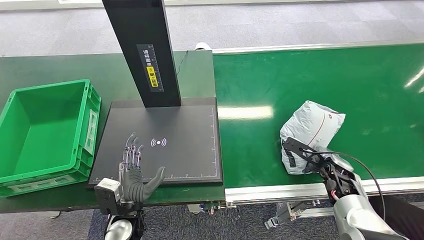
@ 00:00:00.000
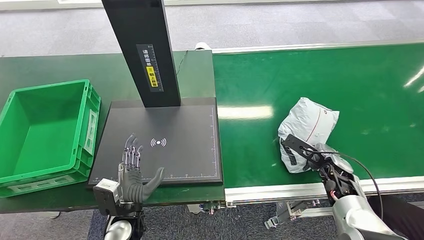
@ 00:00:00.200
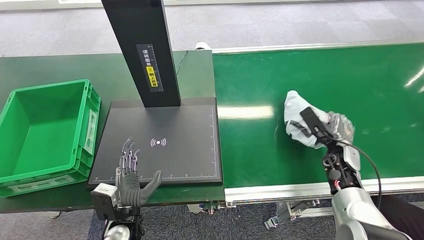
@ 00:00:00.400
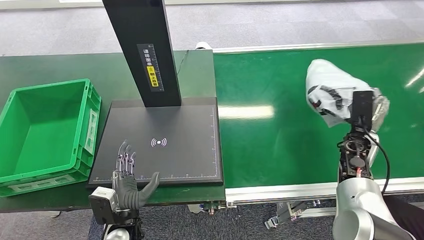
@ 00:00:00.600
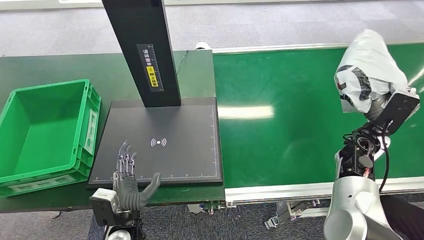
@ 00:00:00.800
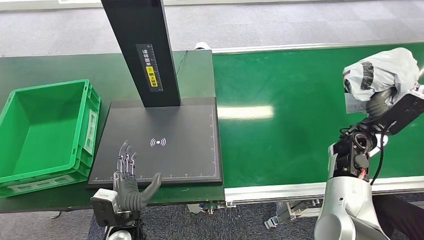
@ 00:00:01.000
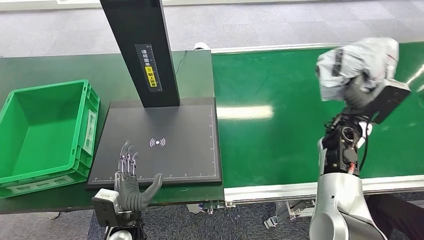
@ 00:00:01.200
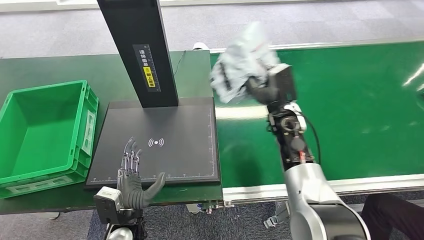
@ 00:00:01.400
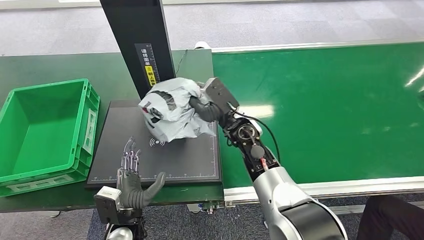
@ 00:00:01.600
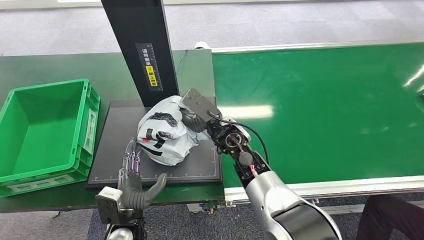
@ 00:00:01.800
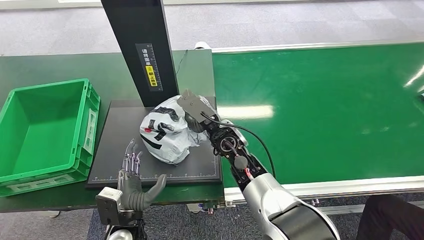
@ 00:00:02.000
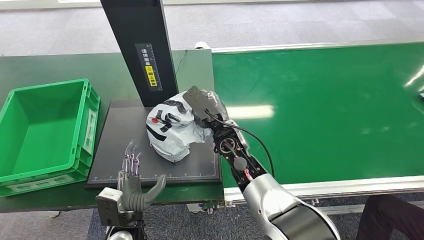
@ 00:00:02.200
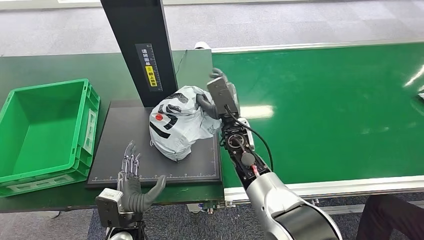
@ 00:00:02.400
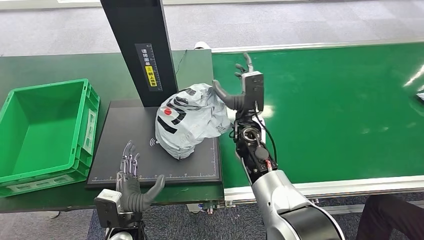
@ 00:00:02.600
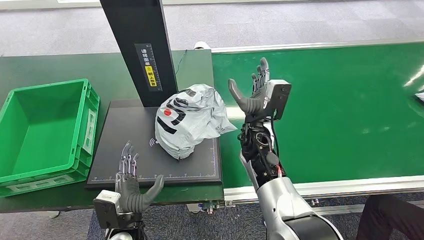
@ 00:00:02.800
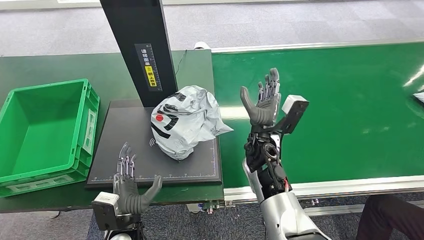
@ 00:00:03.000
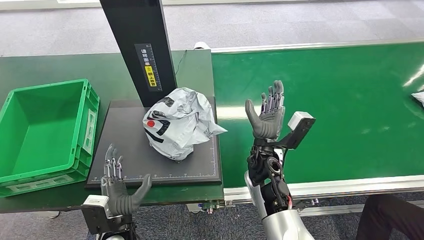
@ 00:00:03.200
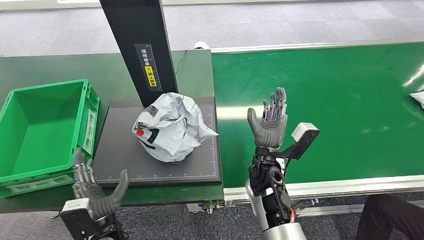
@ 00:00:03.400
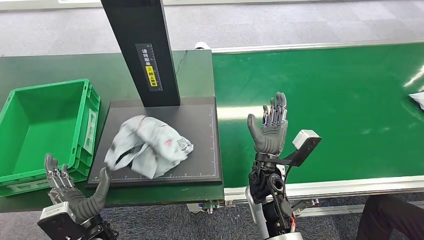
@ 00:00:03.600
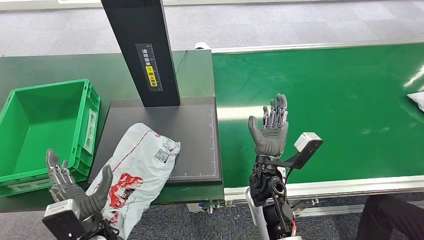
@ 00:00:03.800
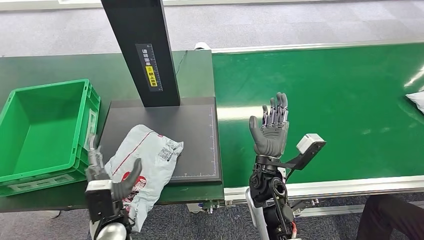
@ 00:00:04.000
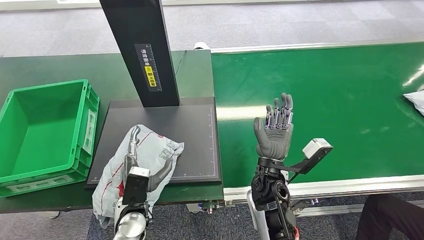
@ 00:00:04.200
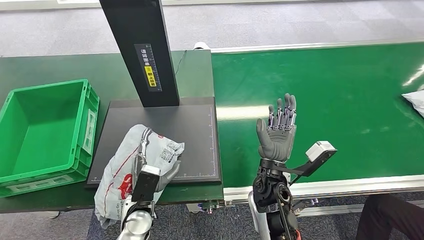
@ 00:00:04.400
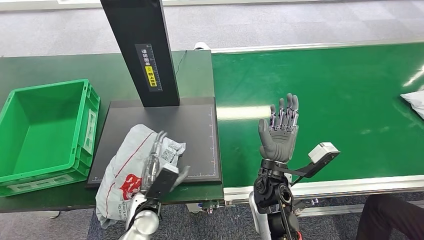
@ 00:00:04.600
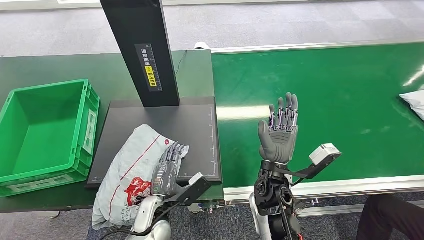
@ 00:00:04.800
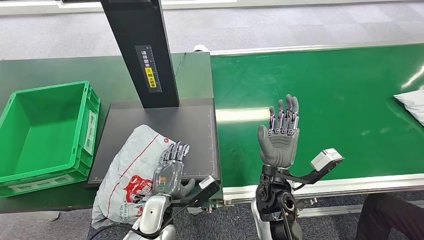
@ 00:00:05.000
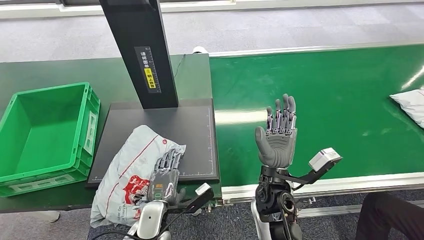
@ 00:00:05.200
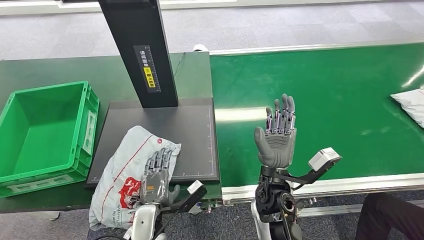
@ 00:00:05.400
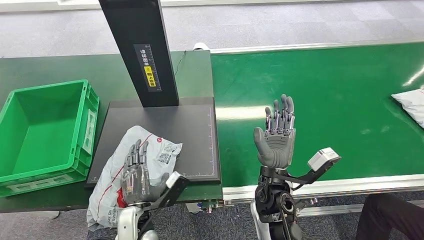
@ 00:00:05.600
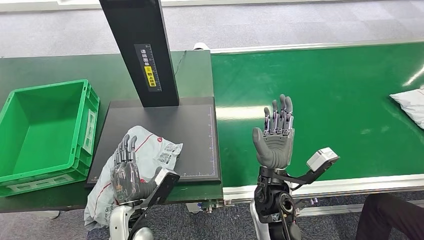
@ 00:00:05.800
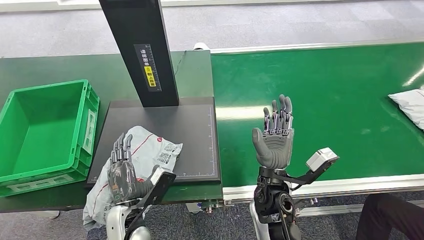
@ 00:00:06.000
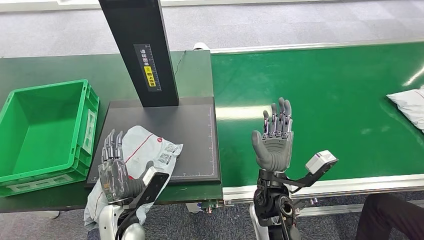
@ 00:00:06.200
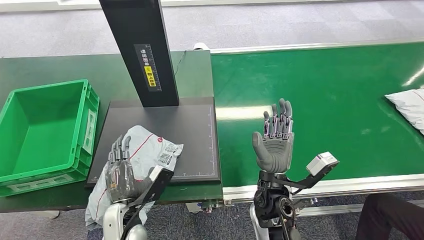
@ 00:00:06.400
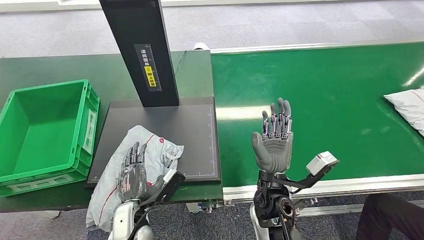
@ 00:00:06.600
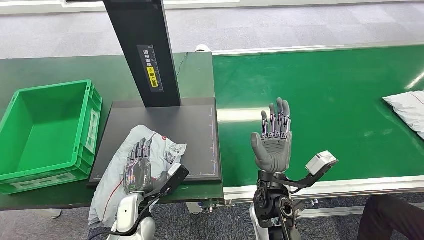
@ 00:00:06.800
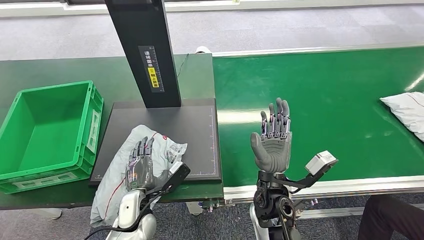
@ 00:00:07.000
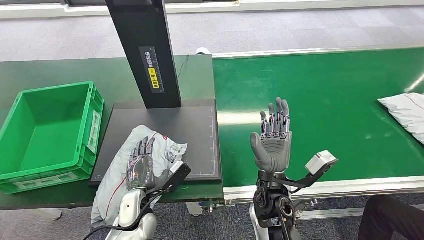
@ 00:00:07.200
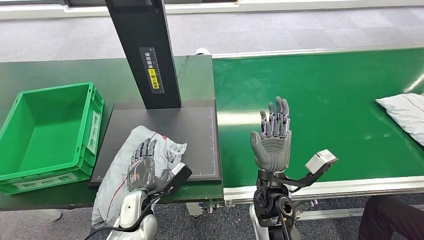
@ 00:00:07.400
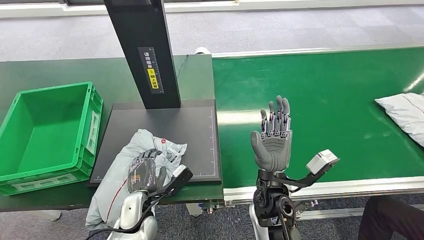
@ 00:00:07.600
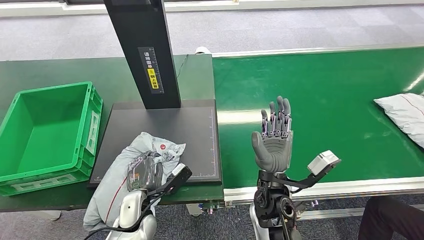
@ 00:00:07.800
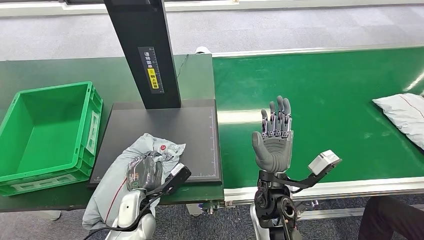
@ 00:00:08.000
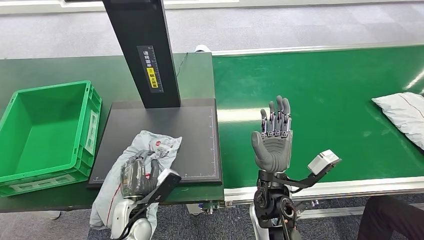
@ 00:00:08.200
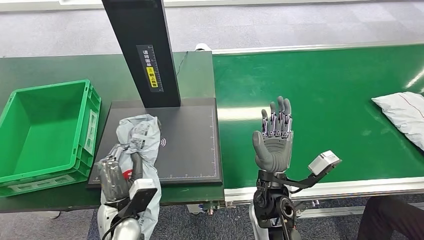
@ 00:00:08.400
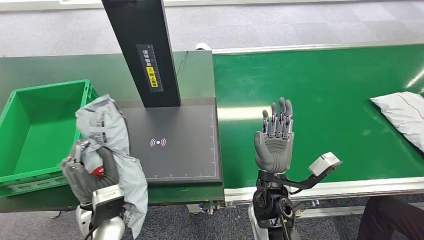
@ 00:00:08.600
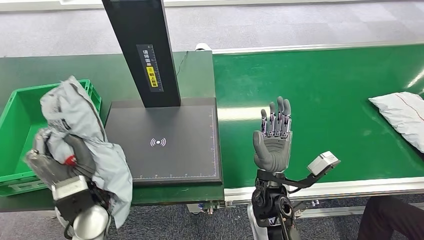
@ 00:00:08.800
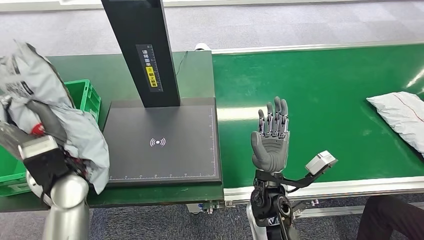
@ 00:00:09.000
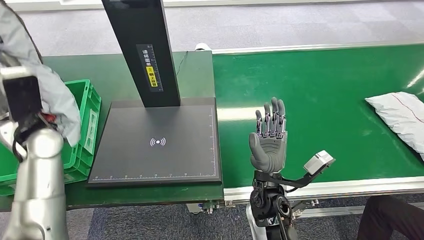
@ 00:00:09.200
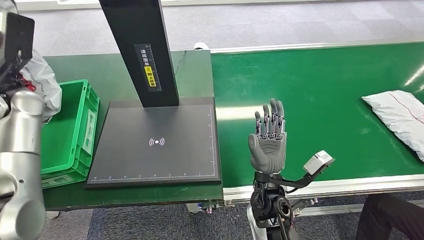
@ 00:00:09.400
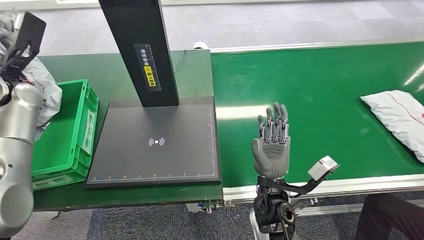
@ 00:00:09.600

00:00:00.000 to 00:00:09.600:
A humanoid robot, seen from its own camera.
Step, 00:00:01.000 to 00:00:04.200: Place the package onto the inbound machine.
Step, 00:00:04.400 to 00:00:09.000: Pick up the package from the inbound machine.
00:00:01.600 to 00:00:03.200: The right hand travels backward and downward by some 10 cm.
00:00:03.200 to 00:00:04.800: The left hand is displaced to the right by approximately 5 cm. Meanwhile the right hand heads backward, covering approximately 5 cm.
00:00:04.800 to 00:00:06.400: The left hand changes place by some 5 cm.

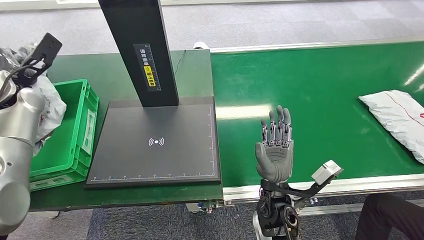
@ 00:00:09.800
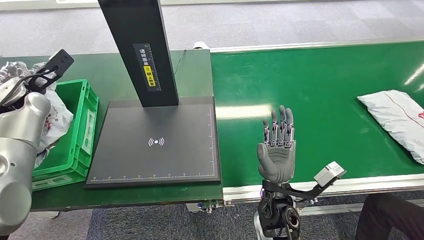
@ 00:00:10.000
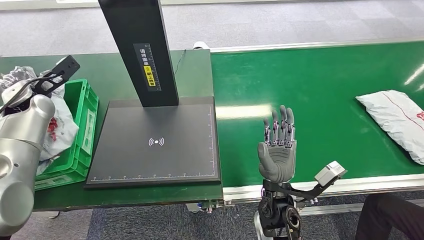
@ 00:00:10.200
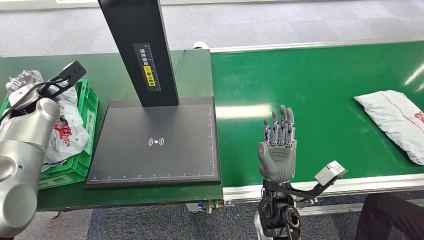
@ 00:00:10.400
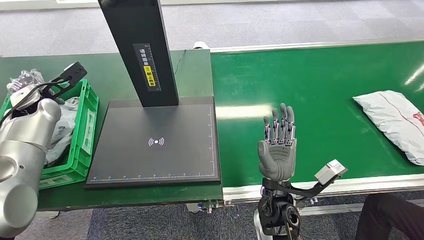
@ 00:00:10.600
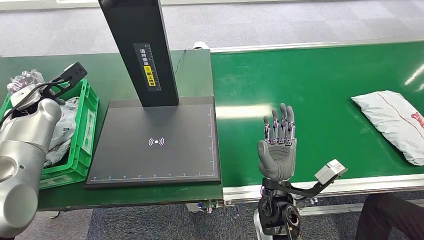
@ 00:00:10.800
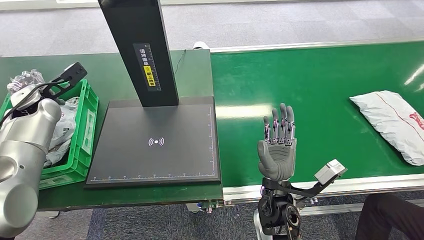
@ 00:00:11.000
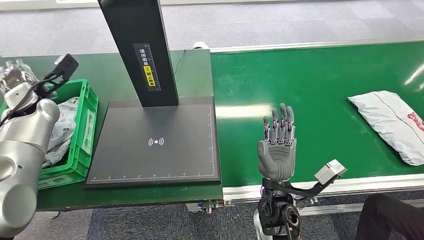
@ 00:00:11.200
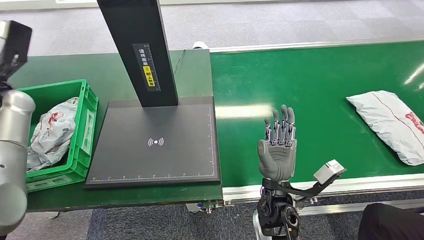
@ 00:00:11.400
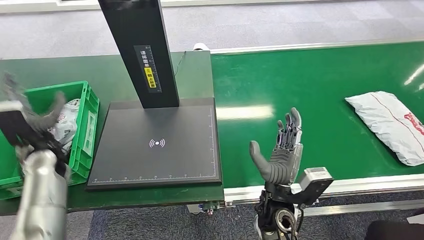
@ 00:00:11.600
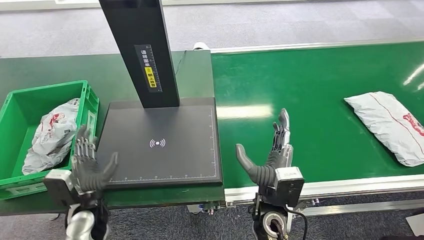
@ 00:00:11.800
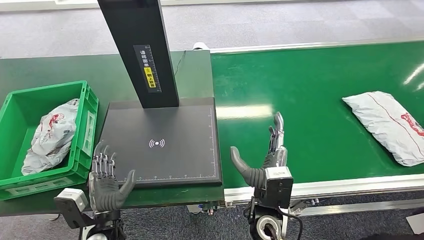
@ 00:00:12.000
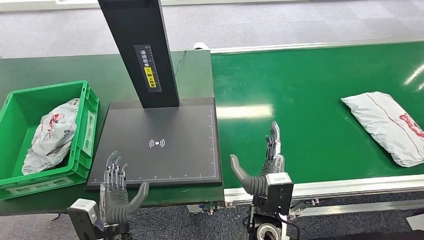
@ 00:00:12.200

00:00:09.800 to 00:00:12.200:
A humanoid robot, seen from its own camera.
Step, 00:00:09.800 to 00:00:12.200: Place the package into the parcel locker.
